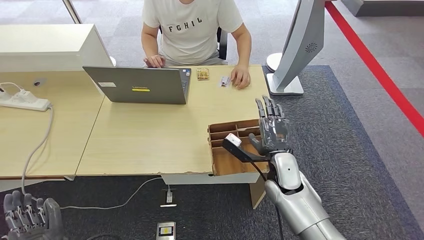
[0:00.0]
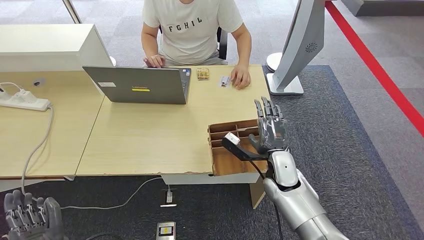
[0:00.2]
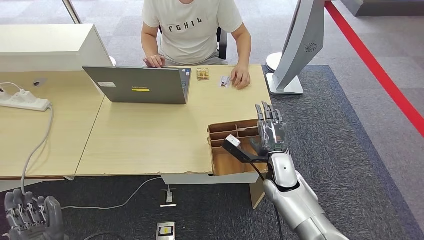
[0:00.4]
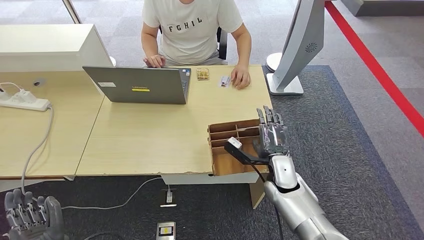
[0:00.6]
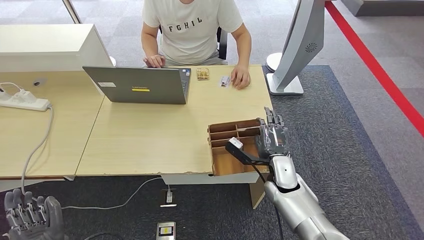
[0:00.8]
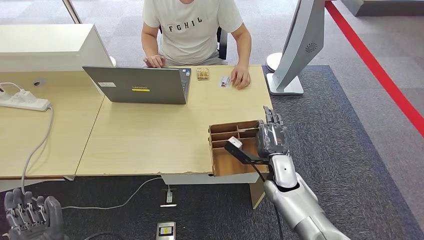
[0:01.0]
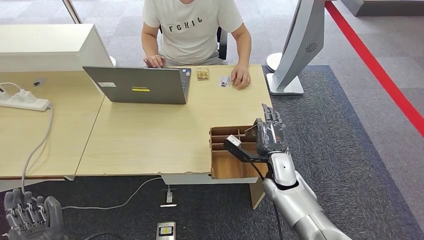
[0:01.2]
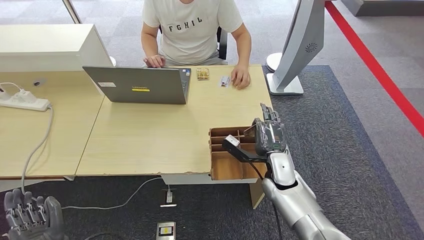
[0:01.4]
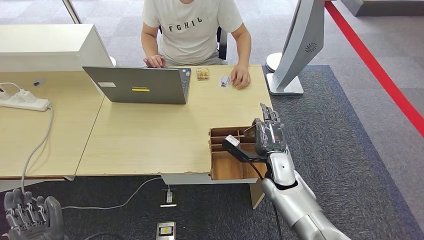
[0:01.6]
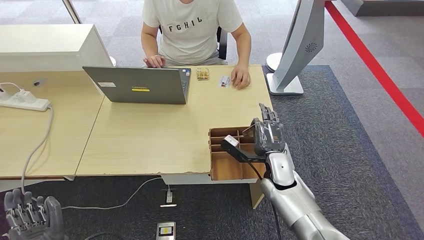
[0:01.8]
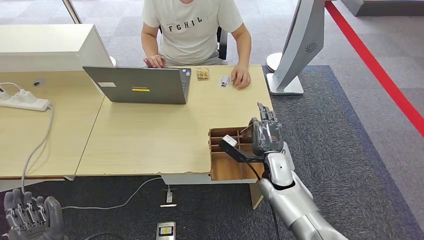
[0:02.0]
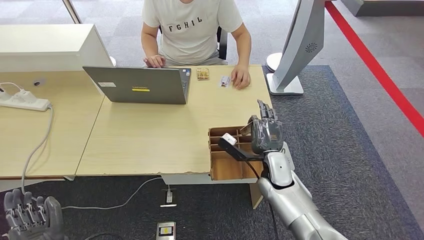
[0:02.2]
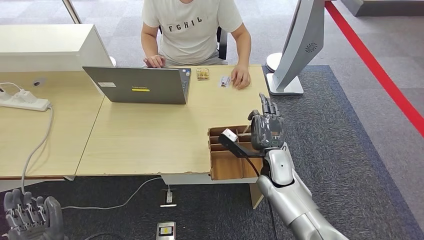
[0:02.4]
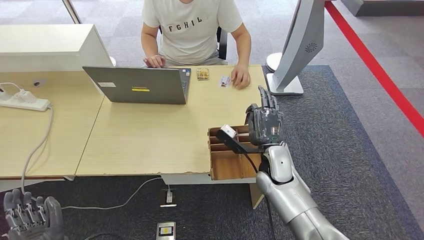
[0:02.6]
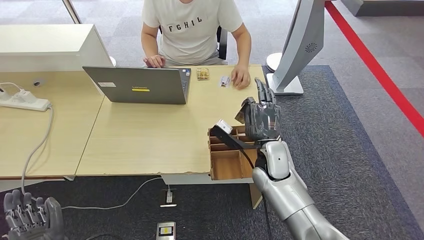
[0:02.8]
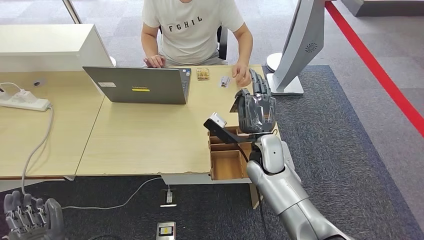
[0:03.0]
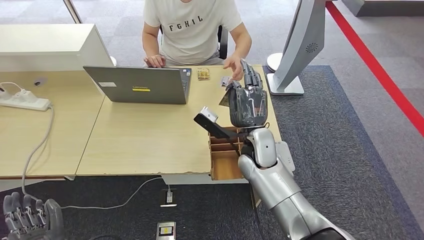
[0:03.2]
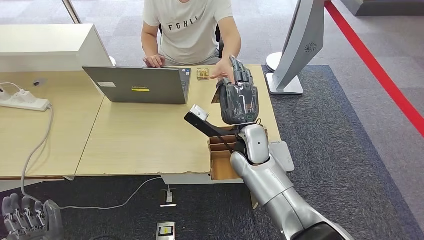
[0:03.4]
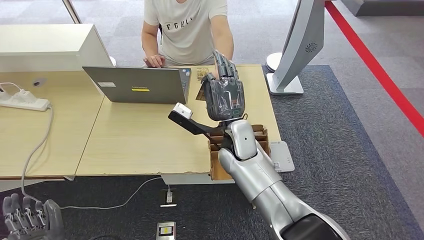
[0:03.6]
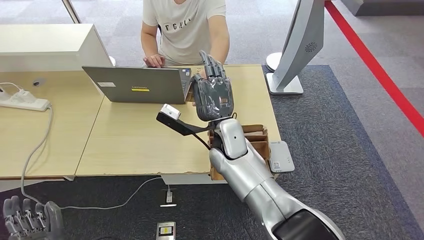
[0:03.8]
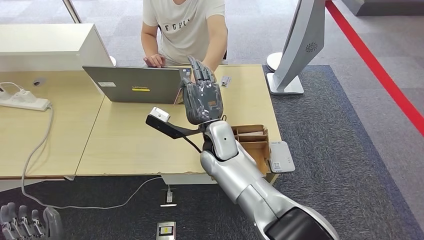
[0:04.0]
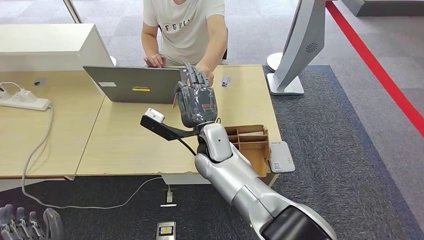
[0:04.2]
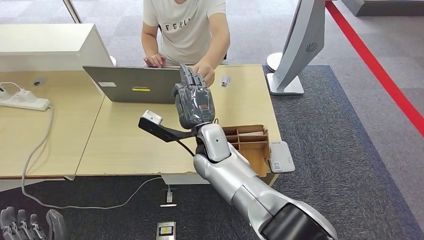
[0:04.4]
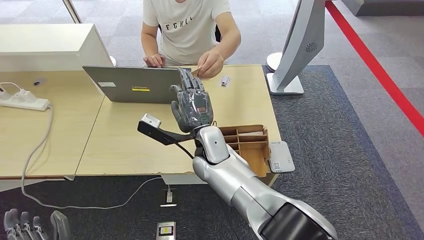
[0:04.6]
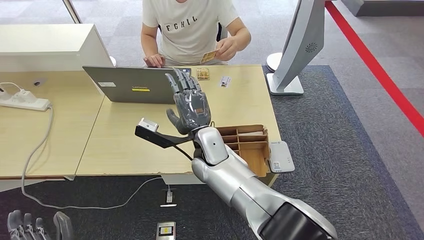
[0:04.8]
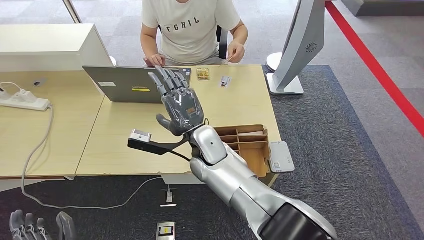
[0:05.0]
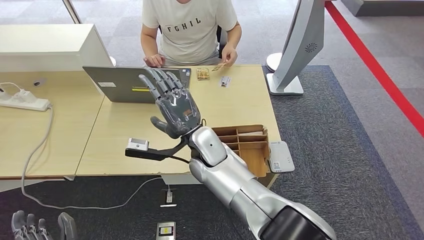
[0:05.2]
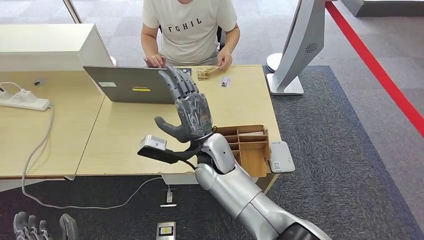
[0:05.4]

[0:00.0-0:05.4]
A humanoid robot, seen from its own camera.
Step, 0:00.0 to 0:02.8: Pick up the room key from the key card box.
Step, 0:03.0 to 0:05.4: Hand the room key to the person.
0:00.0 to 0:01.4: The hands make only small movements.
0:01.4 to 0:02.8: The right hand shifts some 5 cm upward.
0:02.8 to 0:04.0: The right hand shifts about 15 cm to the left and upward.
